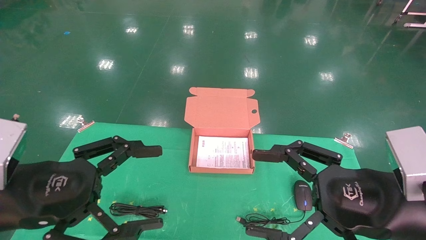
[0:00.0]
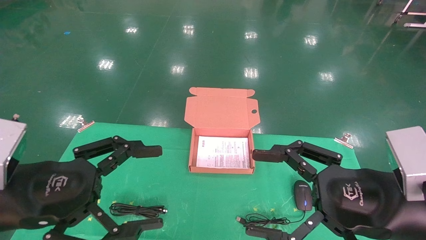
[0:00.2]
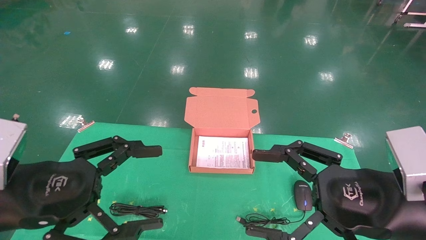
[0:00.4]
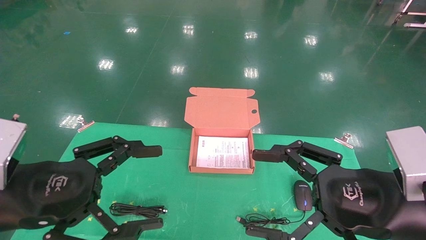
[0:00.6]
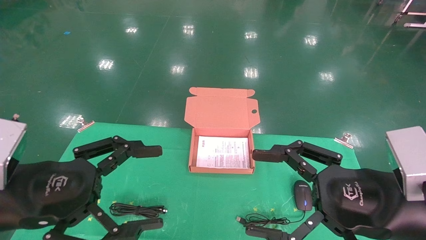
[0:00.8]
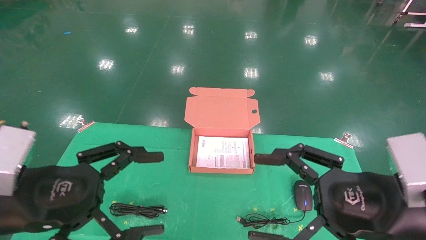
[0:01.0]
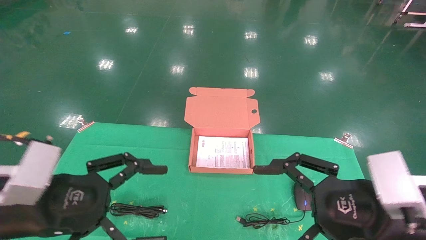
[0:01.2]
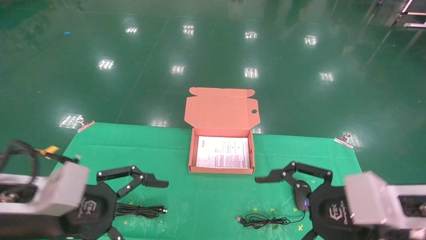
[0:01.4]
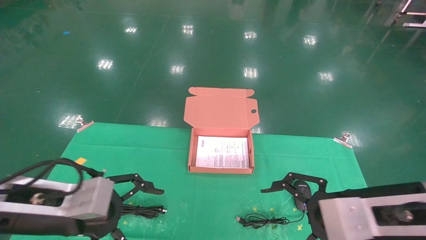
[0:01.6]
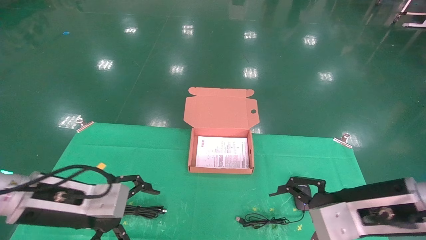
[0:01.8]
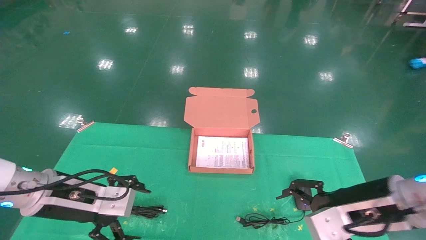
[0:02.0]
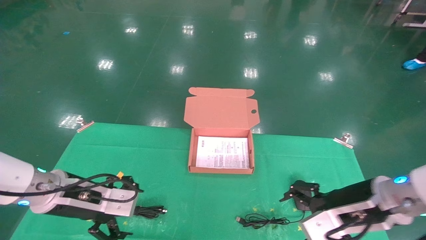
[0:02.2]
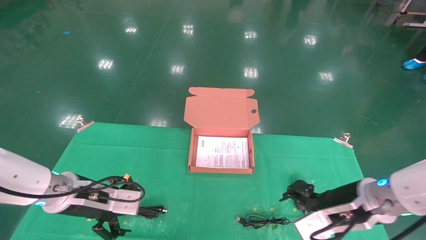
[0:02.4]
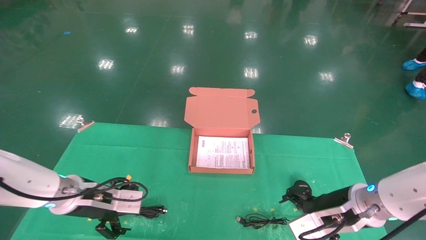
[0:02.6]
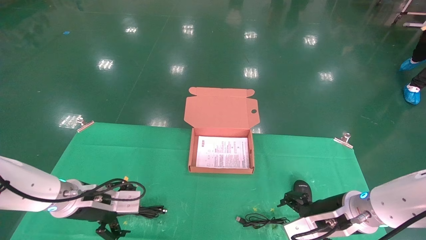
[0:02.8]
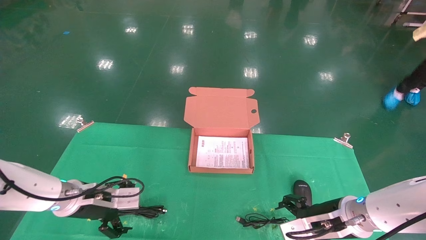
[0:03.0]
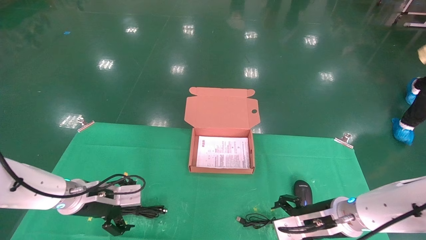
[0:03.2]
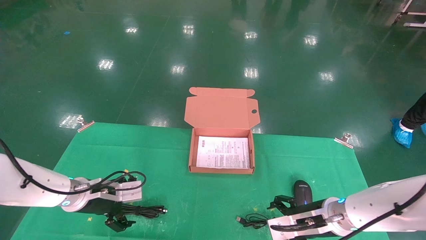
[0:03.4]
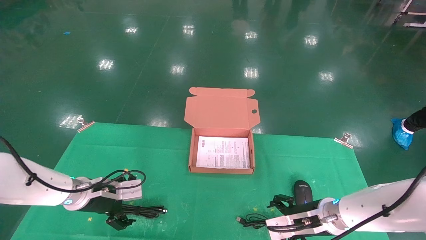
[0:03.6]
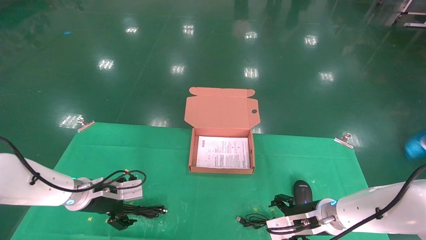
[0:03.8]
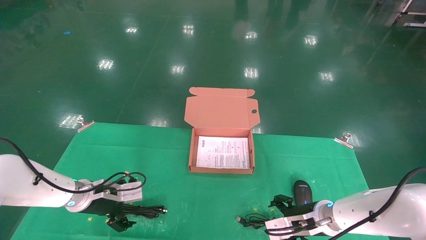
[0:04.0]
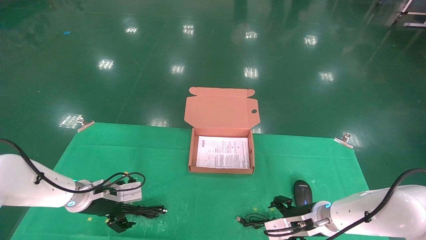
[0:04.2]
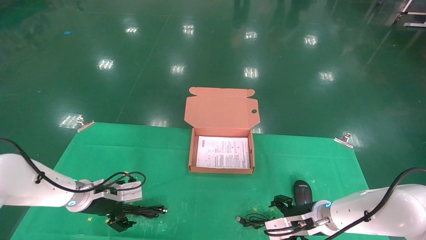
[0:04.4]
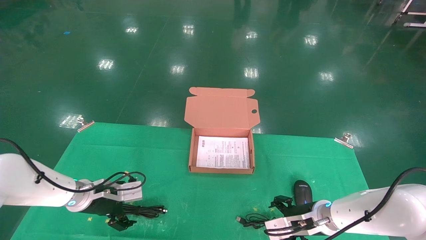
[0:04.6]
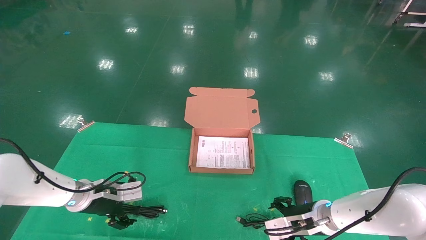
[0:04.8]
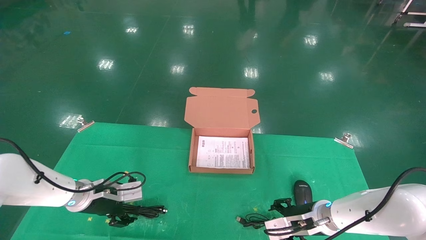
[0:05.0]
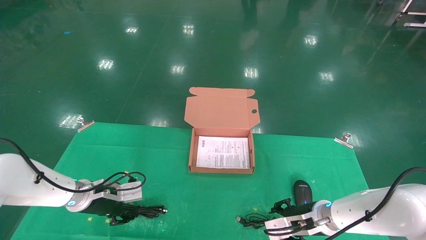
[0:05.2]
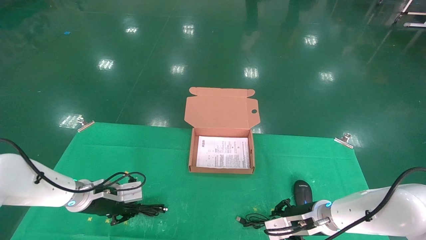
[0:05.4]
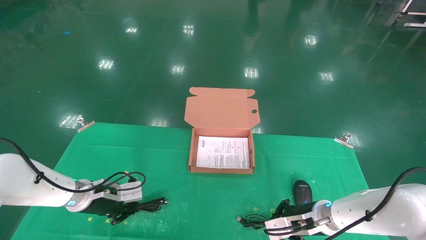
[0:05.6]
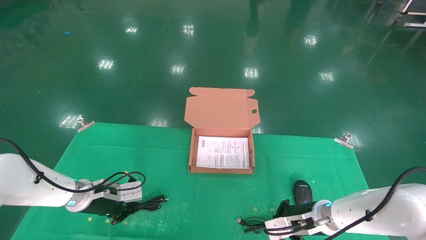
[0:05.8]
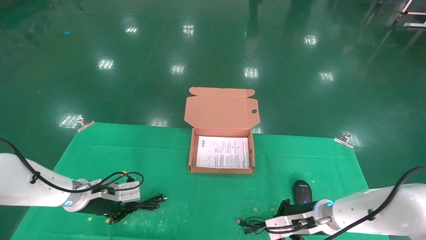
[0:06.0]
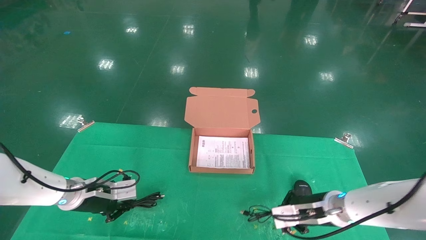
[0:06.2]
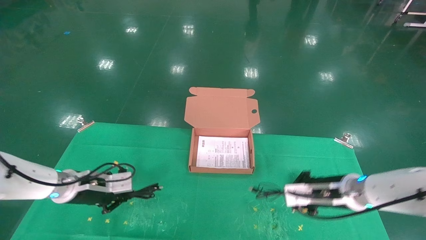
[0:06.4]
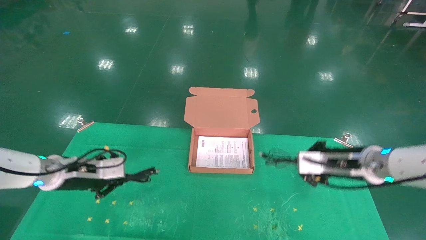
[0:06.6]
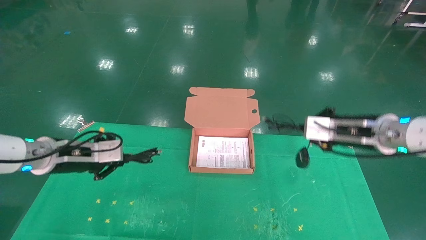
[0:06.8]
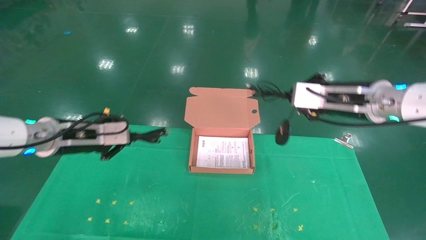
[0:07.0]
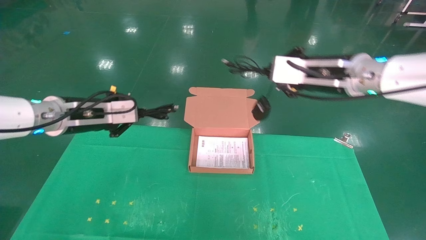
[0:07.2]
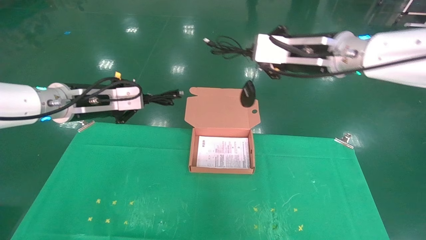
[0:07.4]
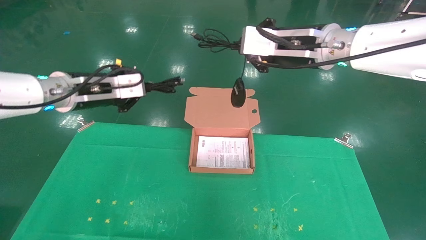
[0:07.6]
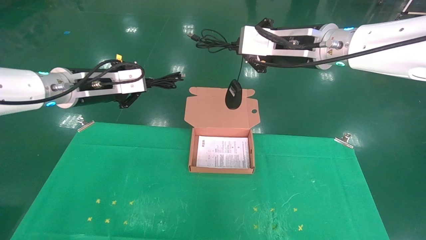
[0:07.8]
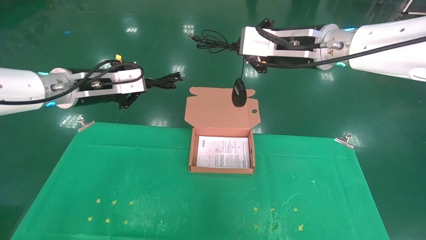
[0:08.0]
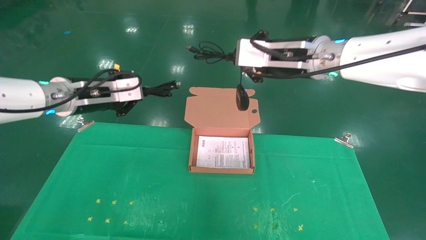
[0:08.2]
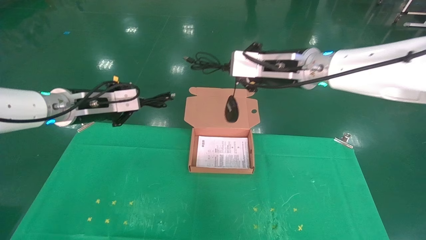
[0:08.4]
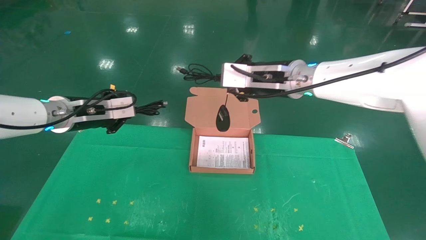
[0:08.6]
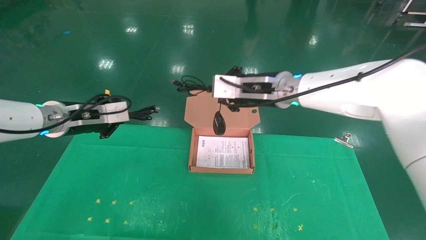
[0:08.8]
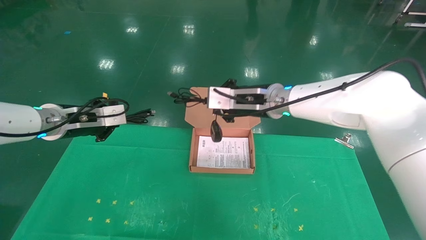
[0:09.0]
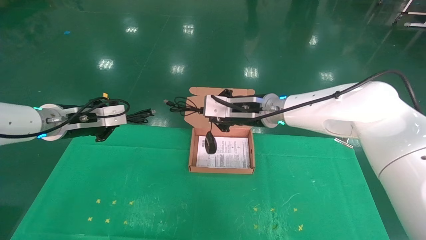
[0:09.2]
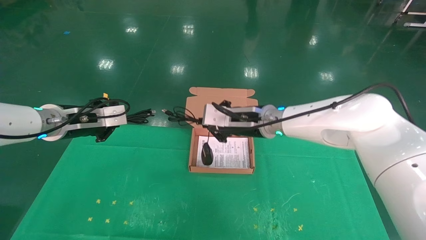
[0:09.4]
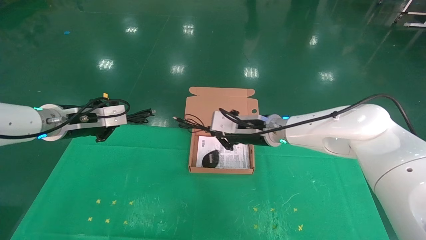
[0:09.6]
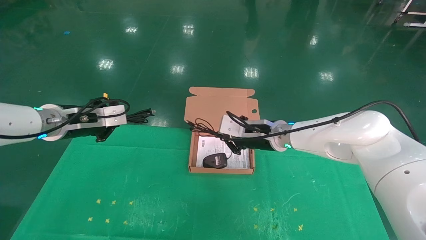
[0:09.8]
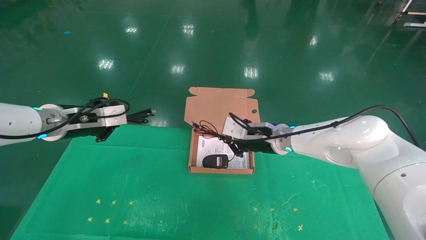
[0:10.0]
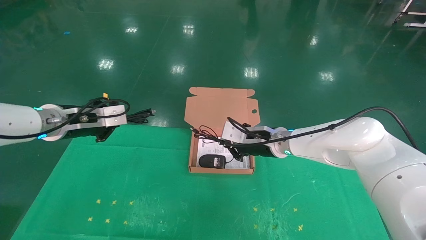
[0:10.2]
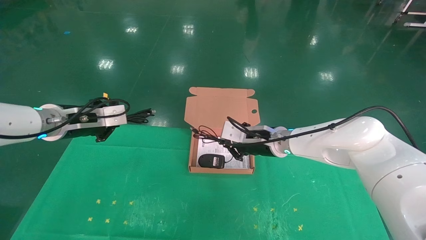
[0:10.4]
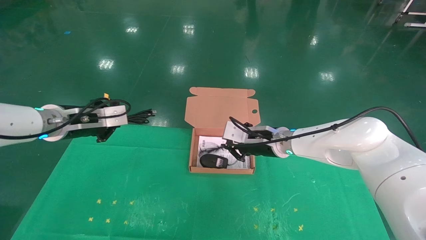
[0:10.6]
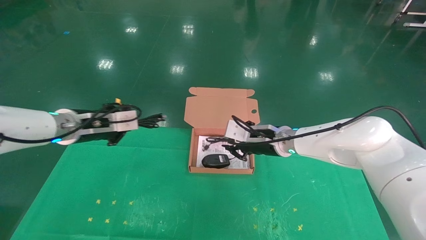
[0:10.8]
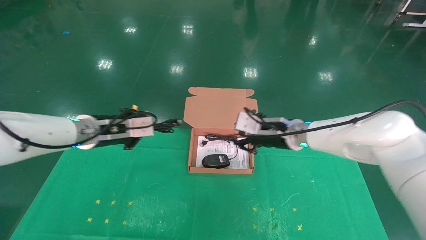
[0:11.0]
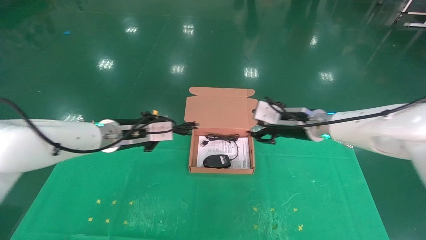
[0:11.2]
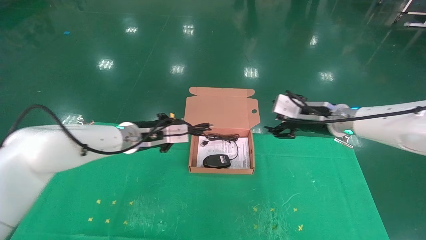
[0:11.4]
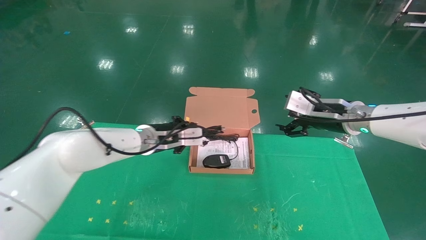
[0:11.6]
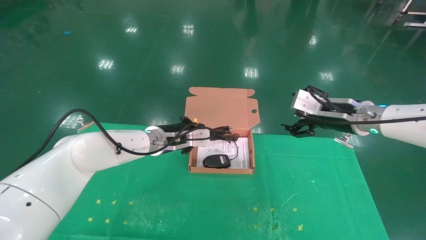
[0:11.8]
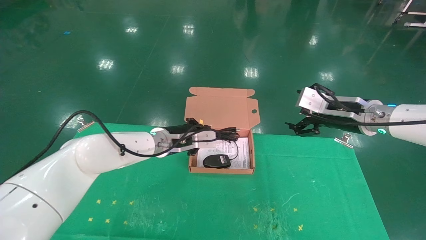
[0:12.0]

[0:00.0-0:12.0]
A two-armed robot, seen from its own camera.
Task of the whole recording: grasp data cable left put into box grasp mouse right put into box.
Step, 0:01.4 to 0:06.0: Grab and pick up both the mouse and power cord from the accessory packaging area at the same time.
0:00.0 to 0:01.6: The left gripper goes some 5 cm forward; the right gripper ends up some 5 cm from where it was.
0:01.6 to 0:03.0: The left gripper is displaced forward and downward by roughly 15 cm. Meanwhile the right gripper shifts approximately 15 cm downward and forward.
0:03.0 to 0:04.4: The right gripper is displaced downward and forward by approximately 10 cm. The left gripper ends up approximately 5 cm from where it was.
0:04.4 to 0:06.0: The right gripper closes. The left gripper closes its fingers.
0:06.0 to 0:07.6: Both grippers move upward, some 30 cm.
0:07.6 to 0:09.0: The right gripper moves downward, to the left and forward, roughly 15 cm. The left gripper goes about 5 cm downward.
0:09.0 to 0:10.4: The right gripper goes about 10 cm downward.
0:10.4 to 0:12.0: The right gripper moves to the right and upward, some 20 cm, and opens, while the left gripper is displaced to the right and forward by some 20 cm.

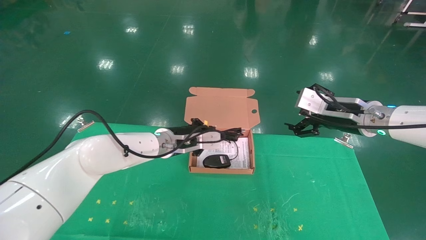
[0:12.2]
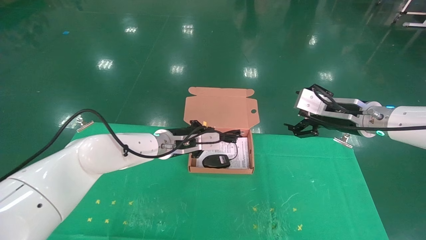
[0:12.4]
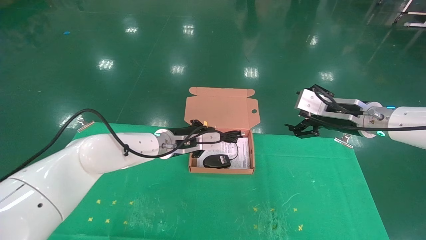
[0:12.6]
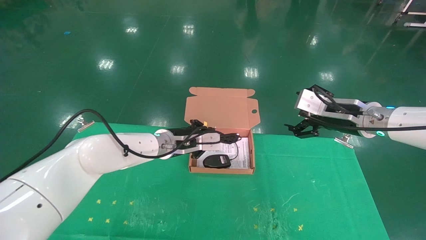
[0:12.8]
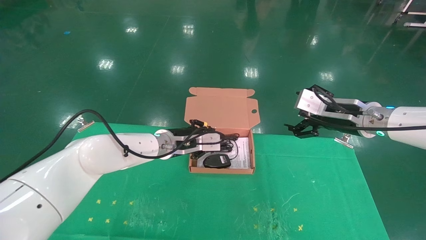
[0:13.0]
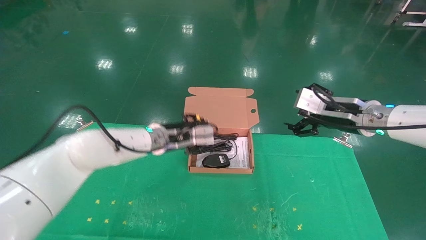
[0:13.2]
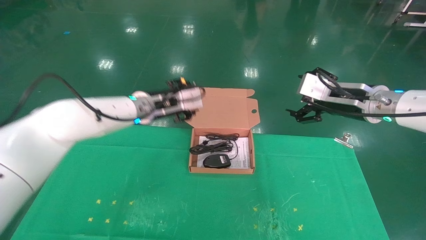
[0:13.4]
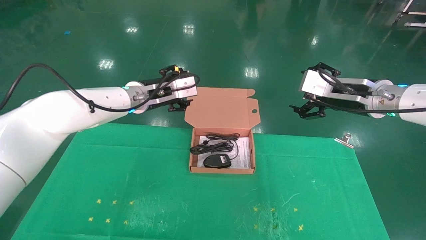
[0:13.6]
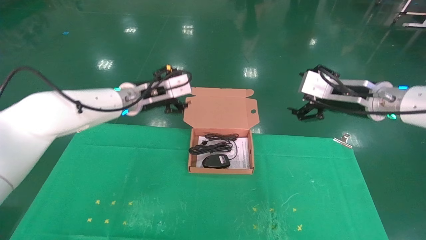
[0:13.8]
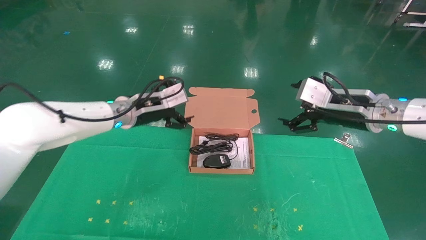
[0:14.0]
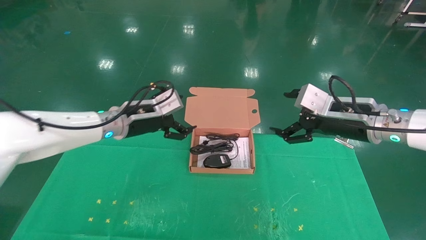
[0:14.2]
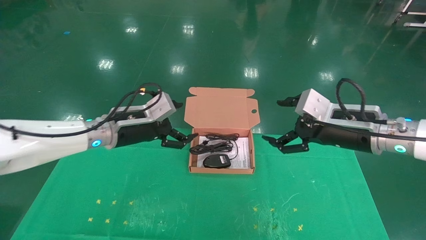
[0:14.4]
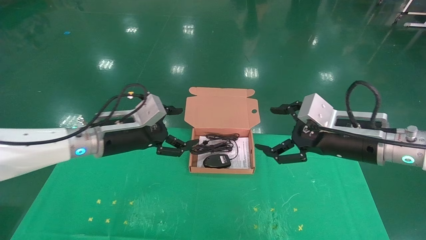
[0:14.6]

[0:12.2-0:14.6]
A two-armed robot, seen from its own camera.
Task of the whole recording: grasp data cable left put into box grasp mouse right put into box.
0:12.2 to 0:13.4: The left gripper is displaced upward by about 10 cm, and opens up.
0:13.4 to 0:14.6: The right gripper goes about 5 cm backward; the left gripper goes roughly 10 cm backward and to the left, and opens.
